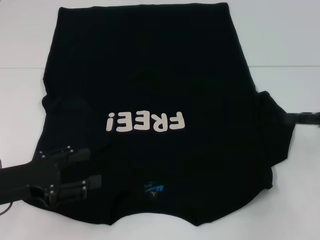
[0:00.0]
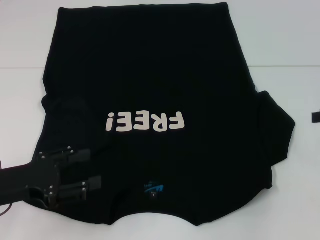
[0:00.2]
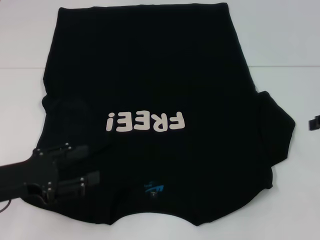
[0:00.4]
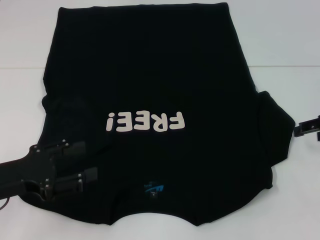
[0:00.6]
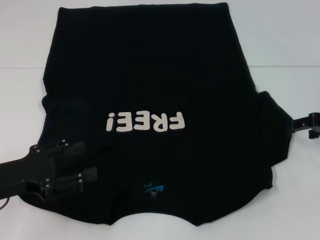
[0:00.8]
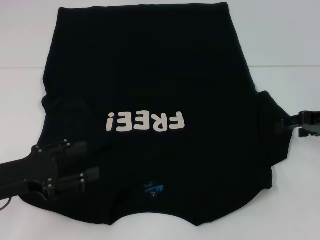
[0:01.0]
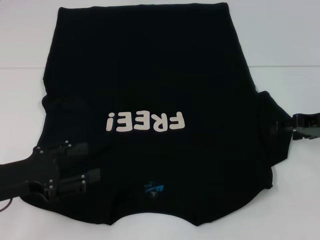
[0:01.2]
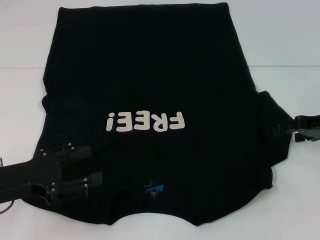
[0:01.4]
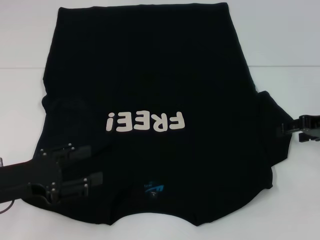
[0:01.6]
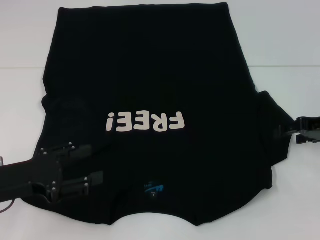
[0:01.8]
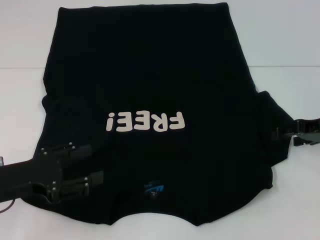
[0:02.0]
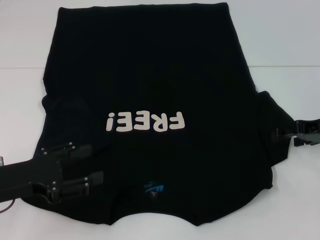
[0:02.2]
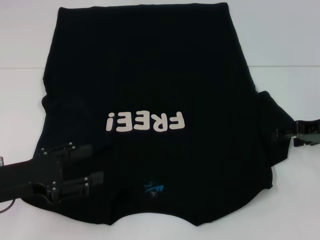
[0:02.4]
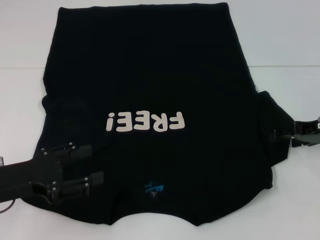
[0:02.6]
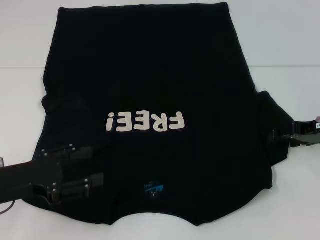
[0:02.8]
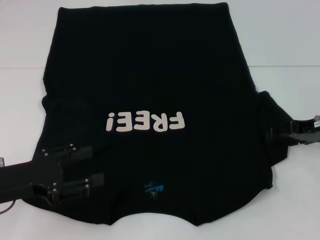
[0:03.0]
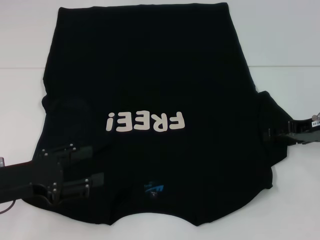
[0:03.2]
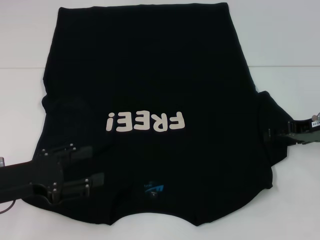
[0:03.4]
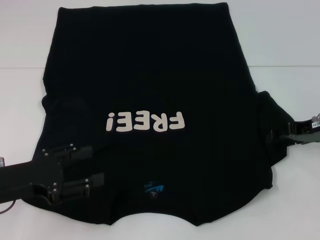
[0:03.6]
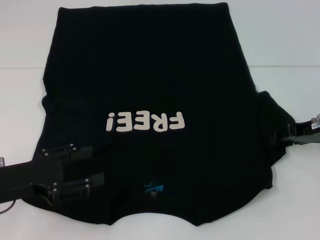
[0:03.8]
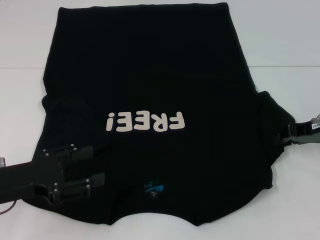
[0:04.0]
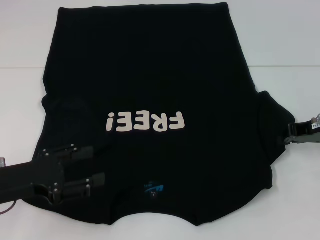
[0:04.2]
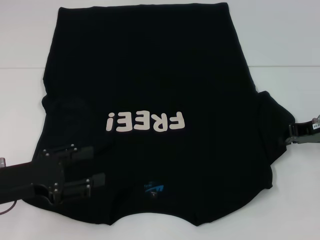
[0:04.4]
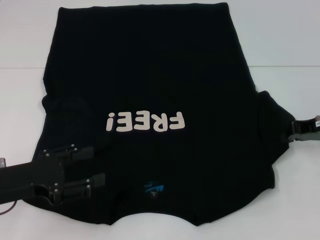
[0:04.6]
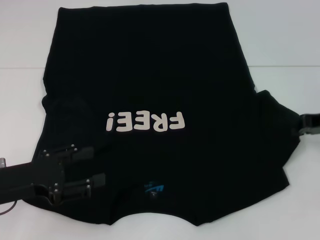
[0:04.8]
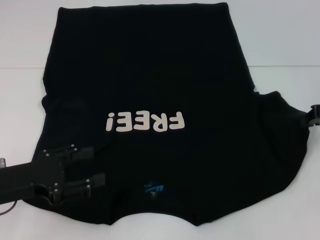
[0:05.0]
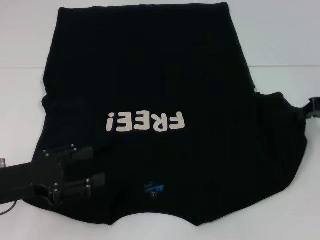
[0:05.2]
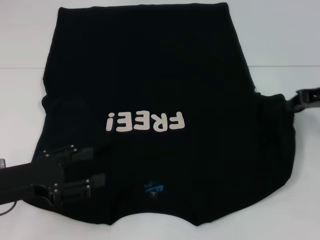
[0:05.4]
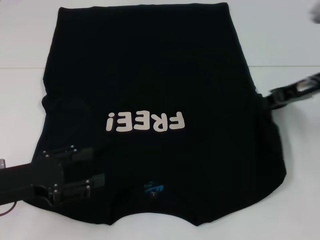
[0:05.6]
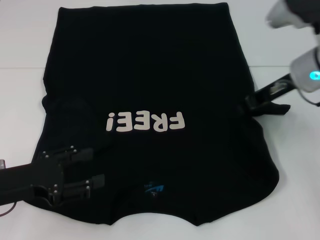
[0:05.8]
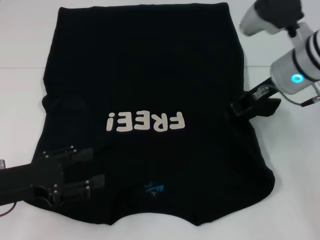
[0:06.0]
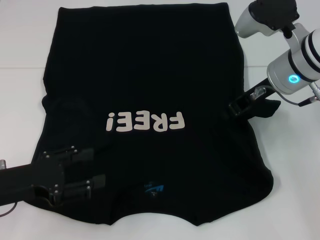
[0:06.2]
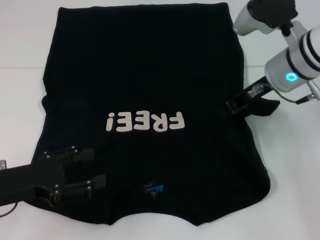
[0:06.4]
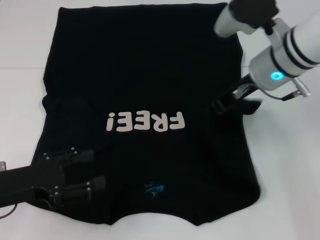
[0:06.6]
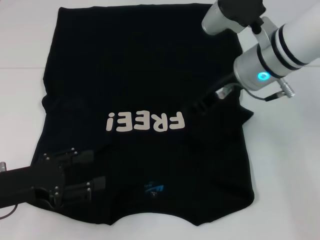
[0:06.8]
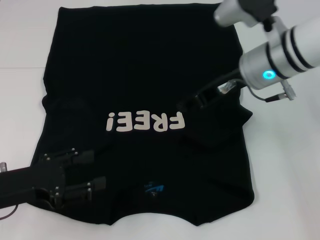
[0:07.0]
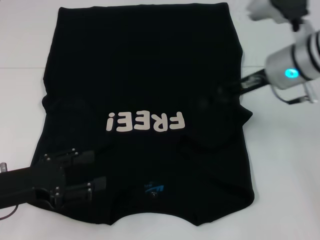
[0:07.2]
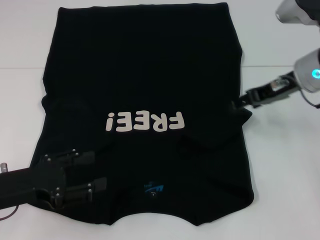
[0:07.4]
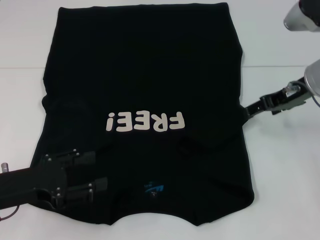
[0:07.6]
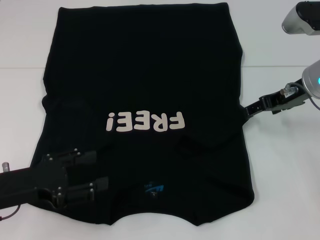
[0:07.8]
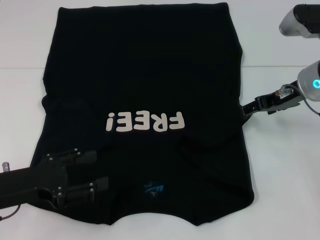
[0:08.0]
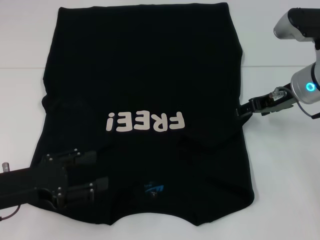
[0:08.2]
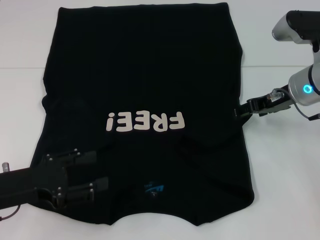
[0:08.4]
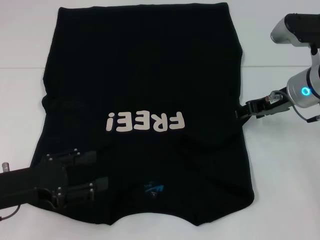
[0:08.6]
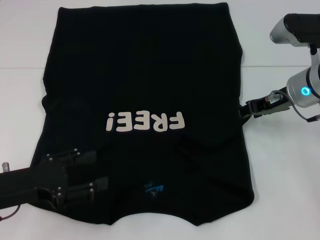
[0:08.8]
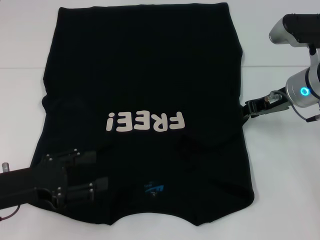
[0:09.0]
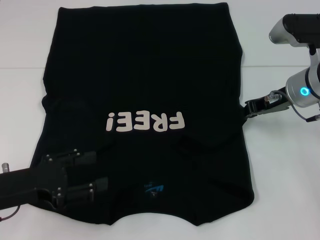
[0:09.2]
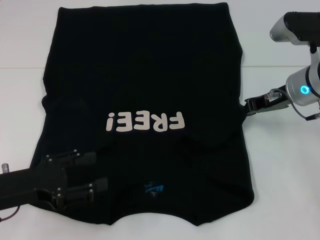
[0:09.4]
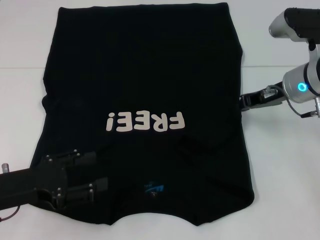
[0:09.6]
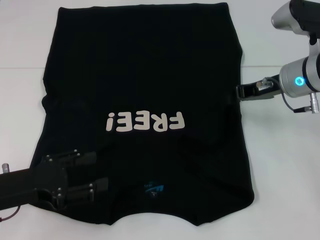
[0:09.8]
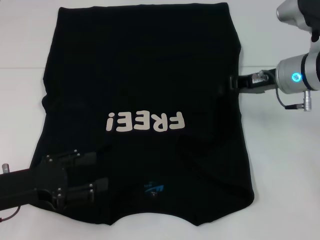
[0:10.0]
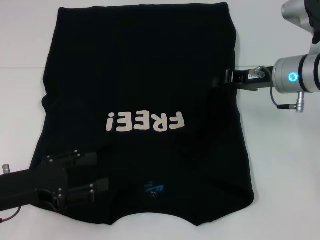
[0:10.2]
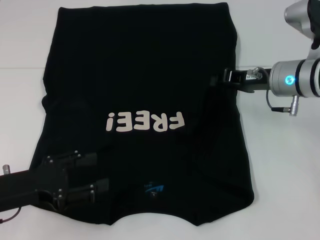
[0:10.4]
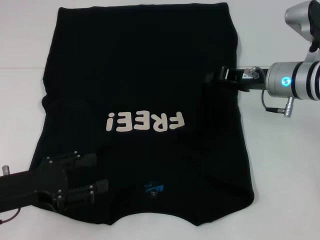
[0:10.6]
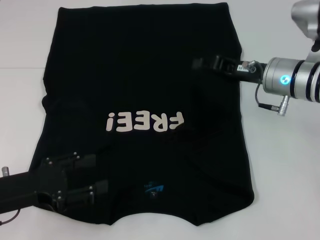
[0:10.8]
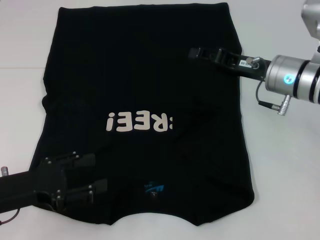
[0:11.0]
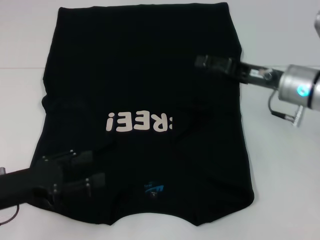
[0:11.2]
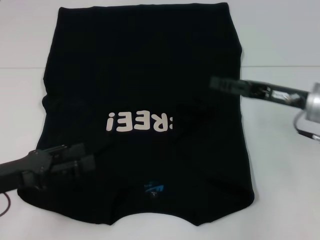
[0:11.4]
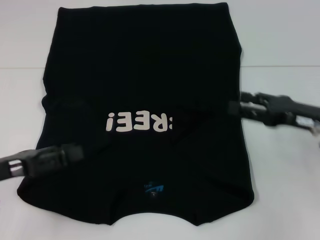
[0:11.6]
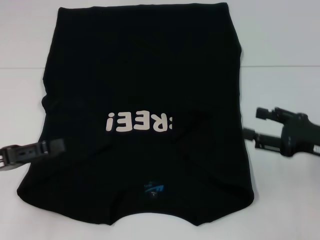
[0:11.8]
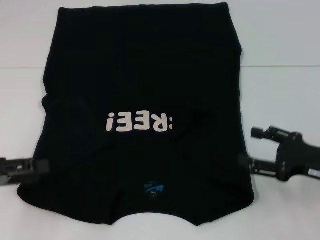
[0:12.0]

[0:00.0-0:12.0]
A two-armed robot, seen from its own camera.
Step, 0:00.0 to 0:08.0: Fold the bottom right sleeve with your right hand.
0:00.0 to 0:01.6: The right gripper shifts by about 5 cm.
0:01.6 to 0:03.0: The grippers make only small movements.
0:03.0 to 0:04.4: The right gripper closes up.
0:04.4 to 0:06.0: The right gripper goes roughly 15 cm to the left and upward.
0:06.0 to 0:07.6: The right gripper moves to the right, roughly 5 cm, and opens its fingers.
0:07.6 to 0:09.0: The grippers move only a little.
0:09.0 to 0:10.4: The right gripper closes.
0:10.4 to 0:12.0: The right gripper is displaced backward, to the right and downward by approximately 20 cm, and opens, while the left gripper is displaced to the left by approximately 10 cm.

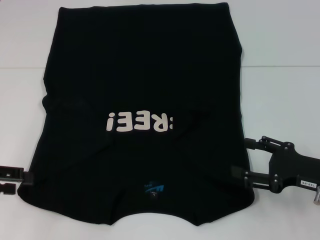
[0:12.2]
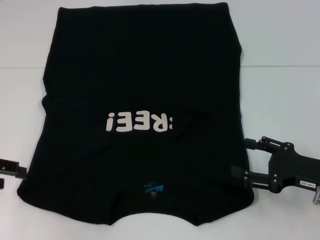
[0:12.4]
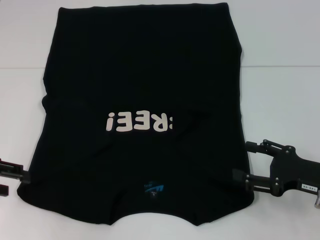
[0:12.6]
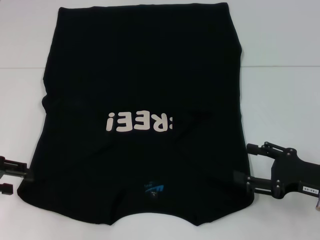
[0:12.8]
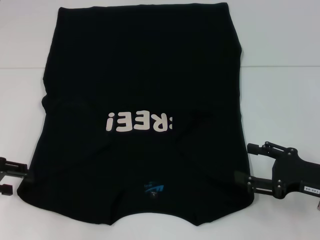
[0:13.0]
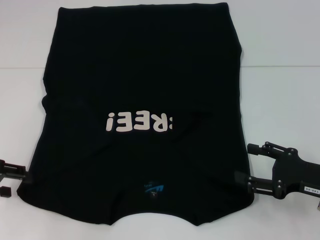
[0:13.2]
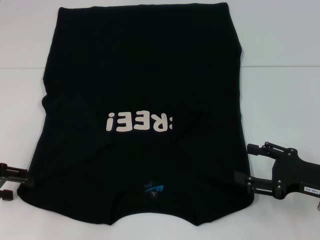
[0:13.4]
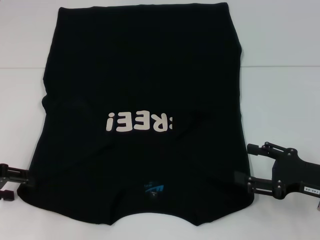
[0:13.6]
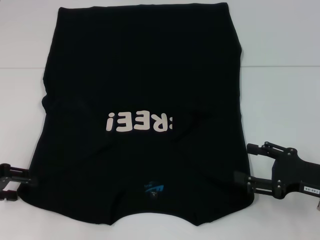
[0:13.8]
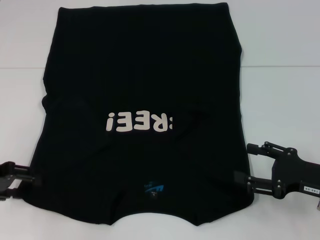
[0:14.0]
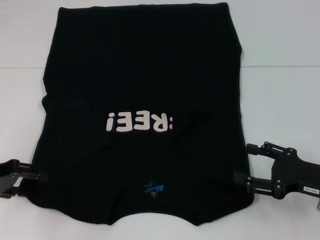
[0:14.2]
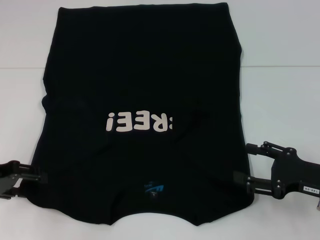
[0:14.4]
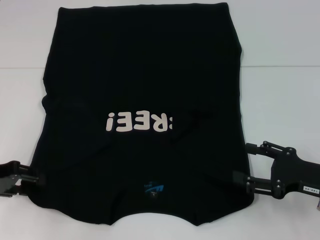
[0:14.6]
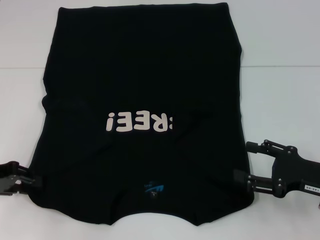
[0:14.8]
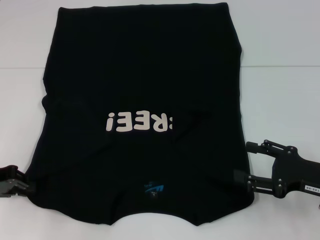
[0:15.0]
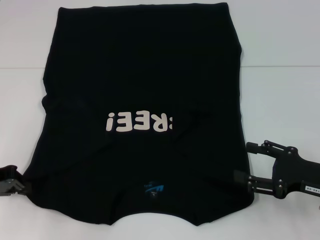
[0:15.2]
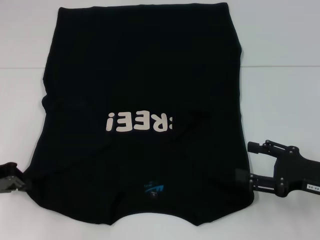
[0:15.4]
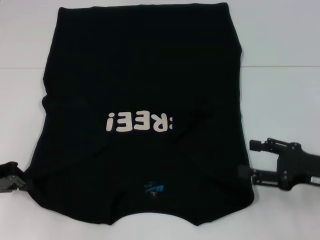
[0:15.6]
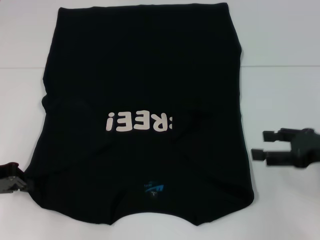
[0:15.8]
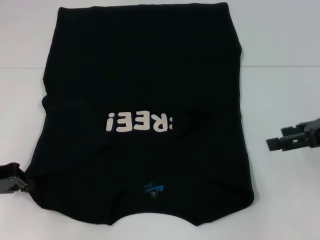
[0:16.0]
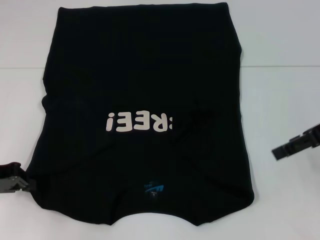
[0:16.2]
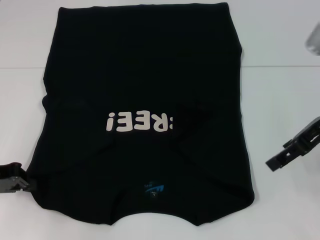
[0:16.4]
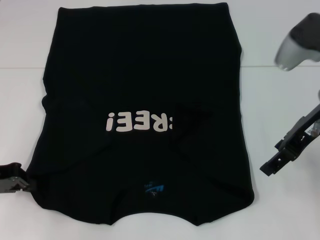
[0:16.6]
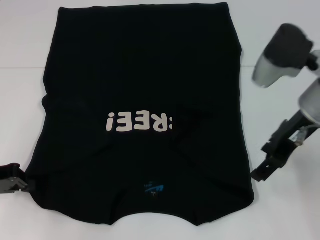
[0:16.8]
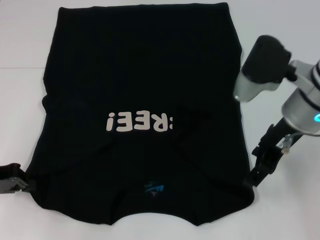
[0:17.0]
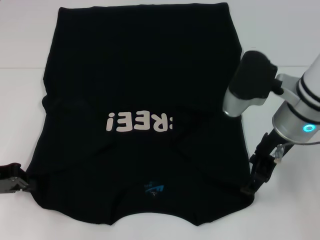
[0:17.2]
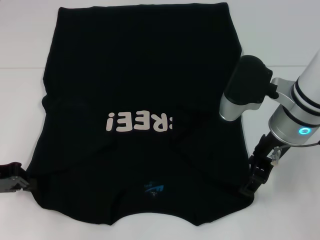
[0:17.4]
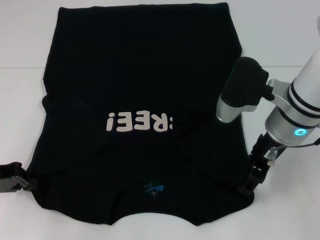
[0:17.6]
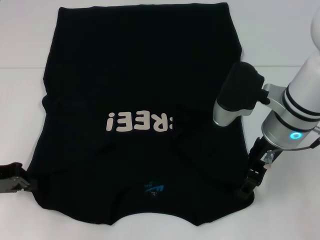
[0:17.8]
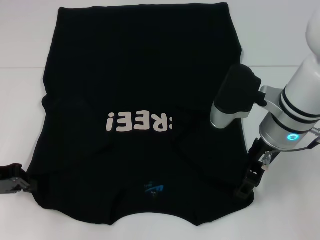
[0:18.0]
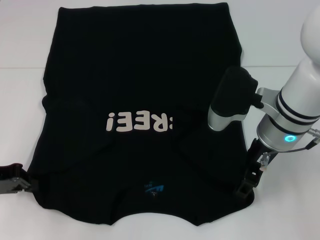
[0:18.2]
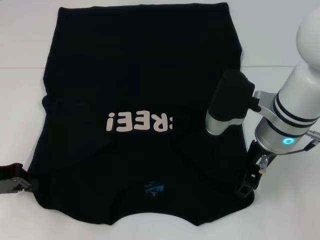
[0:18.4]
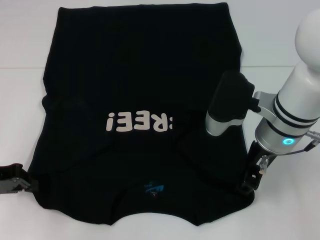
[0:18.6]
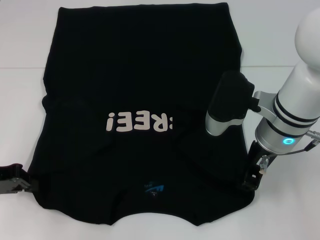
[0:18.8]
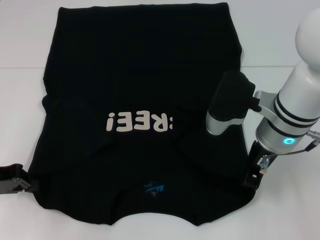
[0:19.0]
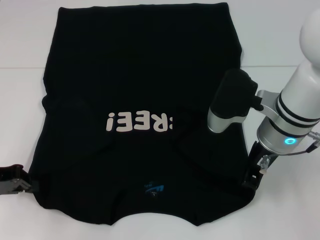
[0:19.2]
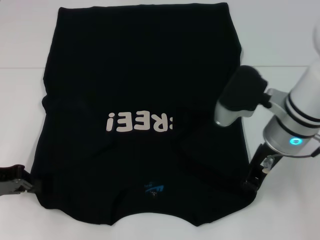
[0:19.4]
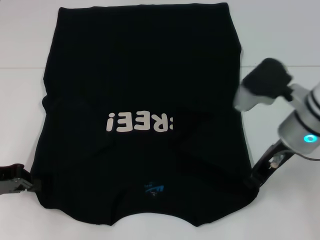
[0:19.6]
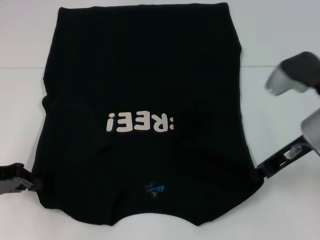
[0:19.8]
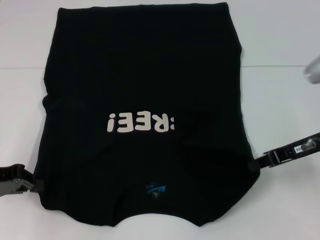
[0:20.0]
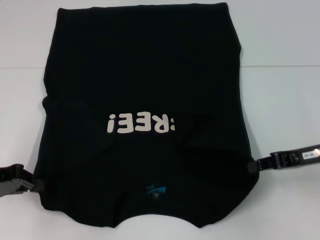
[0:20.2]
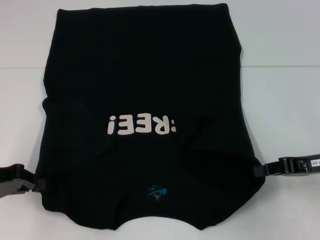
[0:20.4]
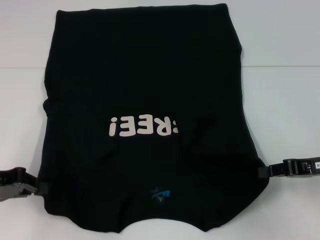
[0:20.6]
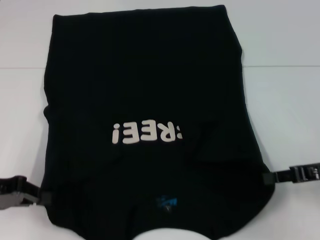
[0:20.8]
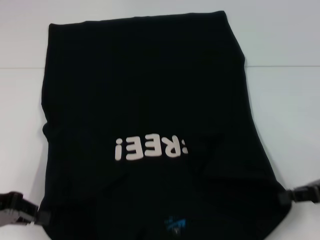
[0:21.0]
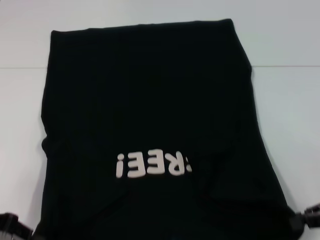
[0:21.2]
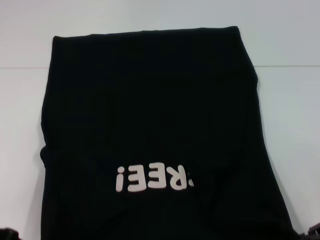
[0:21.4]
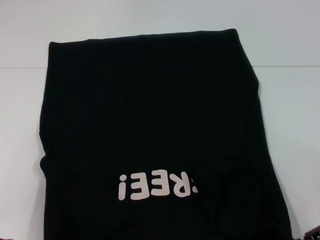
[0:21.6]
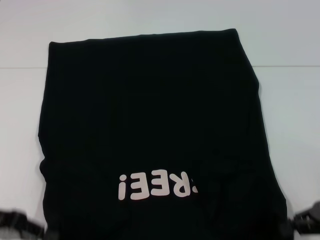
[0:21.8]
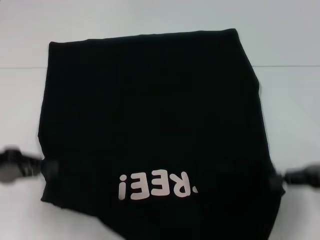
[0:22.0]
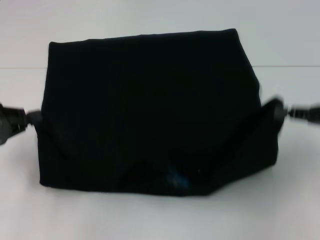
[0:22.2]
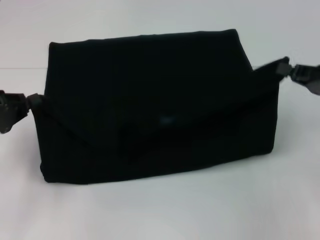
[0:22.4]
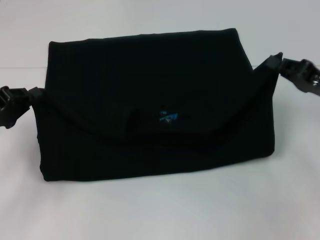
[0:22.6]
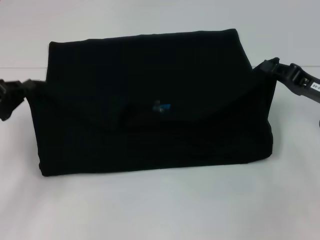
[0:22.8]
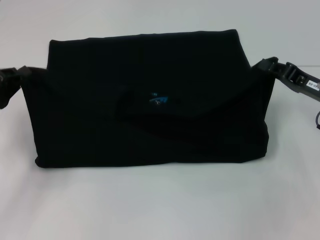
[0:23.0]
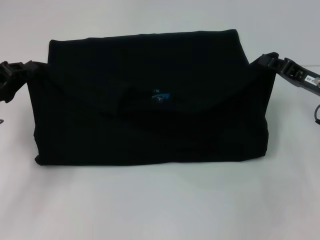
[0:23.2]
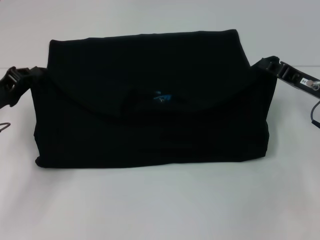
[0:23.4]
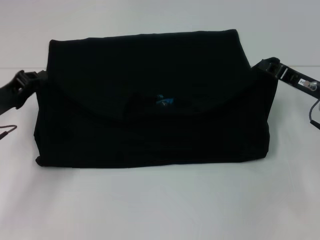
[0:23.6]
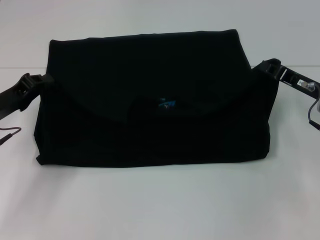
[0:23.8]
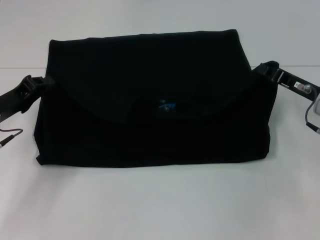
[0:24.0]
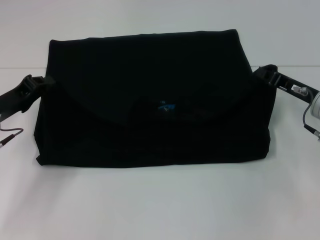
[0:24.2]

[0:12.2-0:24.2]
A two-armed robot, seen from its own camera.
Step, 0:12.2 to 0:15.4: Grab the bottom left corner with your left hand.
Step, 0:15.6 to 0:19.6: Grab the bottom right corner with your right hand.
0:12.2 to 0:13.8: The grippers make only small movements.
0:13.8 to 0:15.2: The left gripper closes.
0:15.2 to 0:16.6: The right gripper is displaced upward, forward and to the left by some 20 cm.
0:16.6 to 0:18.2: The right gripper travels to the left and downward by about 10 cm.
0:18.2 to 0:19.8: The right gripper shifts some 10 cm to the right, and closes.
0:19.8 to 0:21.2: The right gripper is displaced to the right and backward by approximately 15 cm.
0:21.2 to 0:22.6: The two grippers go some 5 cm forward.
0:22.6 to 0:24.2: The left gripper moves approximately 5 cm; the right gripper changes place by about 5 cm.
